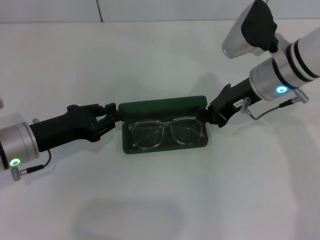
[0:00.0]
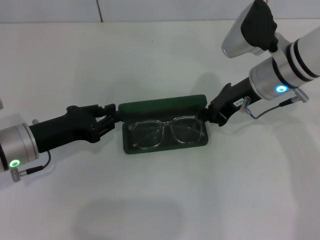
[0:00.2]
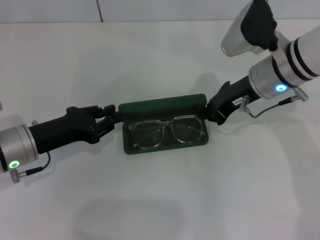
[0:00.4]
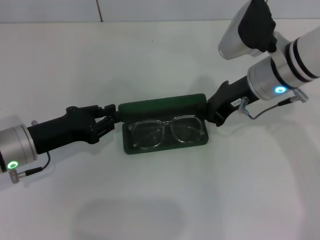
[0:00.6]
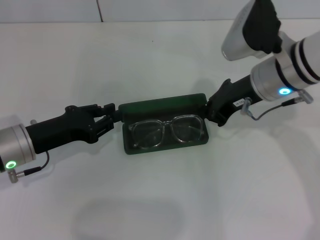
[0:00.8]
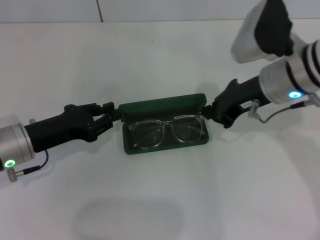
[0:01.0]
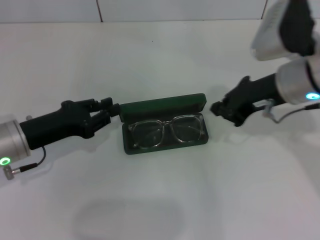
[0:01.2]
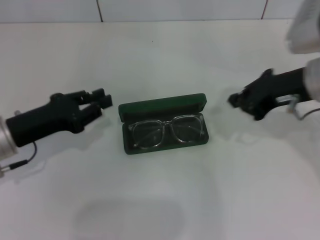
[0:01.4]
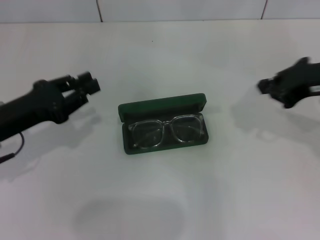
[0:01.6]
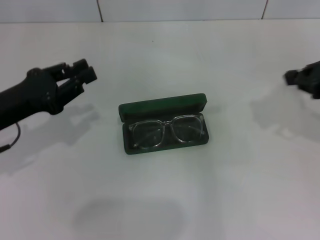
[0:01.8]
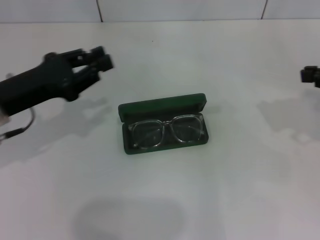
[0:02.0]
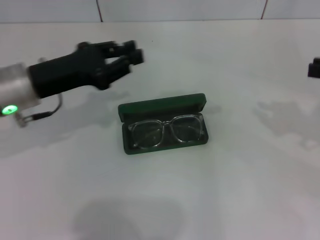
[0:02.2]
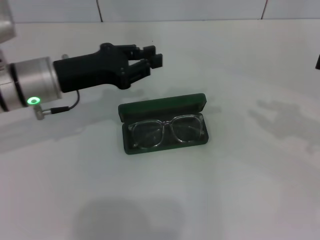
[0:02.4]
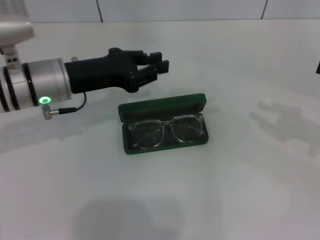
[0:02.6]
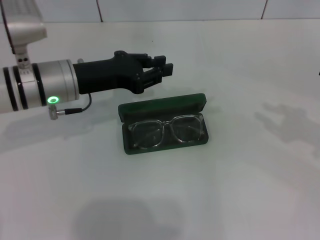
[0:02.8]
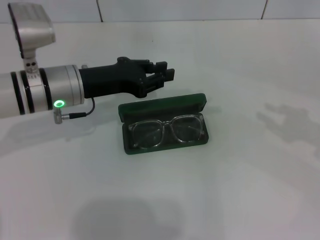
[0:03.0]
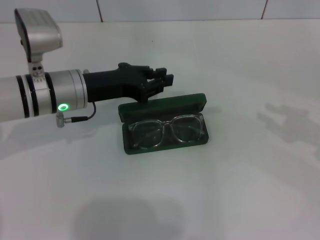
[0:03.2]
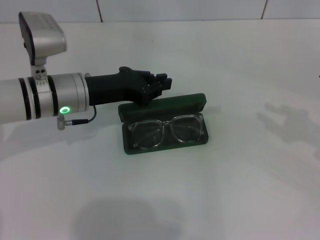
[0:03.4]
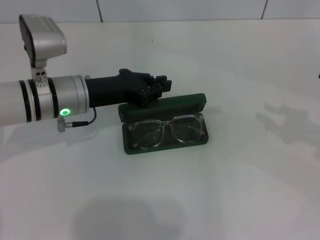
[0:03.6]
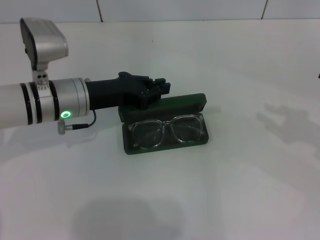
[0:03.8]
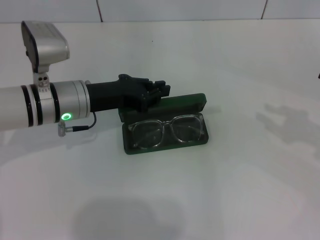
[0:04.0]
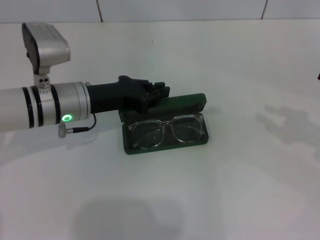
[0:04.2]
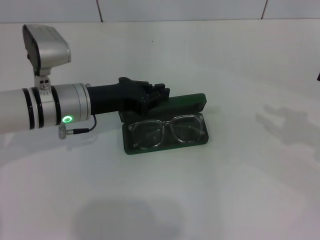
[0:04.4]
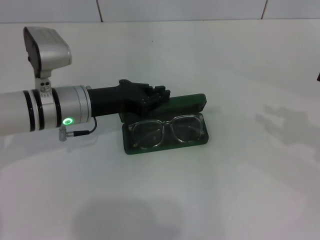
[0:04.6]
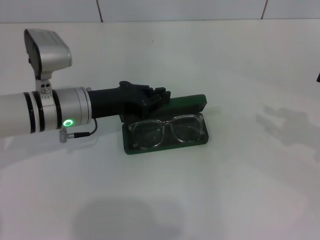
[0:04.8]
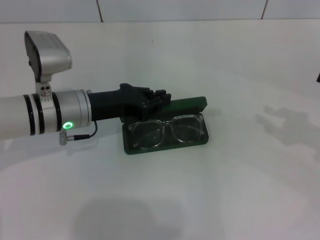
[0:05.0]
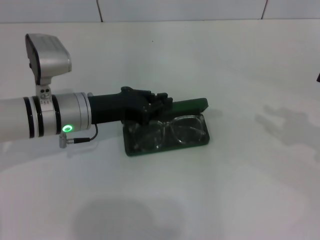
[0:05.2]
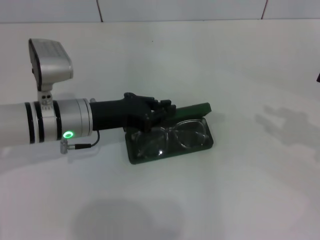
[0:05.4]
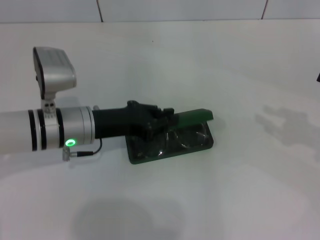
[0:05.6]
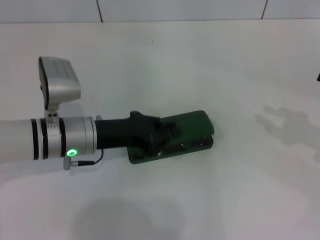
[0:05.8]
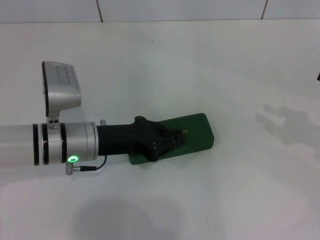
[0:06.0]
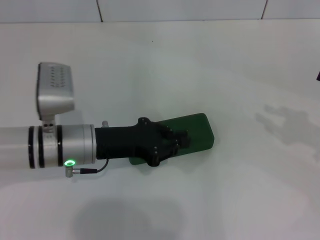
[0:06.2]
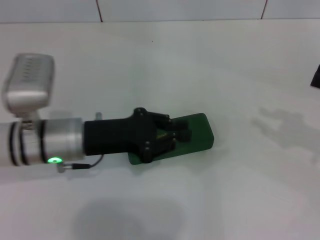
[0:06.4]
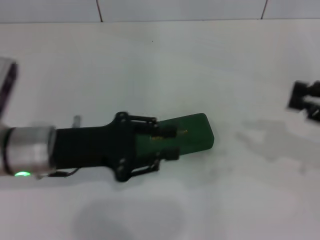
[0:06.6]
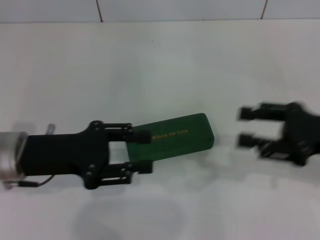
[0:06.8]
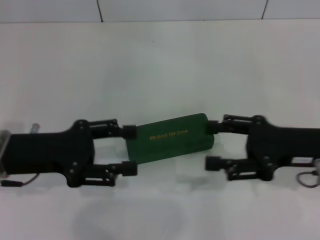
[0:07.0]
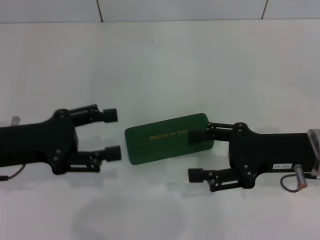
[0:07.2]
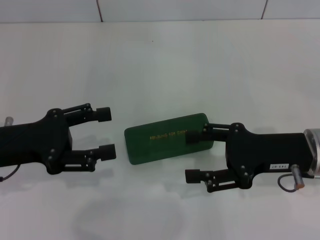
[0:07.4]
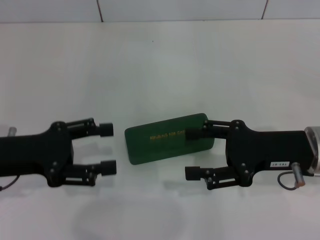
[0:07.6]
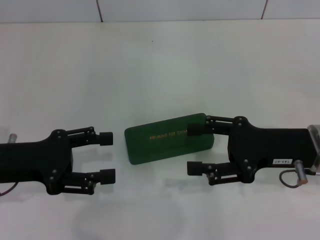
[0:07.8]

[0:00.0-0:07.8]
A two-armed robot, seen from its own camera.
Step, 0:00.0 to 0:06.0: Close the glasses case with your left hand.
0:00.0 to 0:01.6: The right gripper shifts roughly 15 cm to the right, backward and upward, while the left gripper moves about 5 cm.
0:01.6 to 0:03.2: The right gripper goes about 15 cm to the right and backward, and opens up. Meanwhile the left gripper is displaced to the right and forward by approximately 15 cm.
0:03.2 to 0:04.6: There are only small adjustments of the grippers.
0:04.6 to 0:06.2: The left gripper ends up approximately 5 cm from where it was.
0:06.2 to 0:07.8: Both grippers move to the left, about 15 cm. The left gripper opens up, while the right gripper opens.
